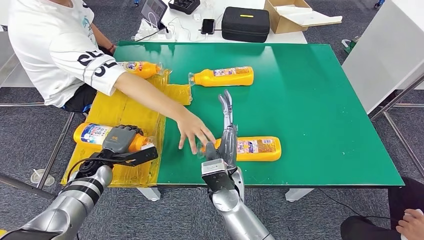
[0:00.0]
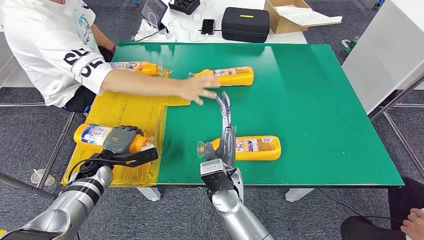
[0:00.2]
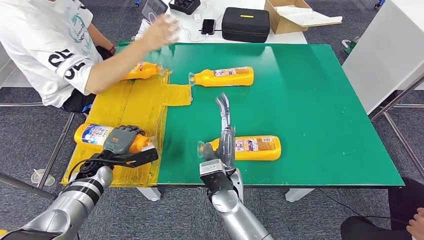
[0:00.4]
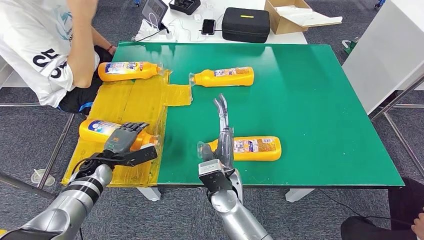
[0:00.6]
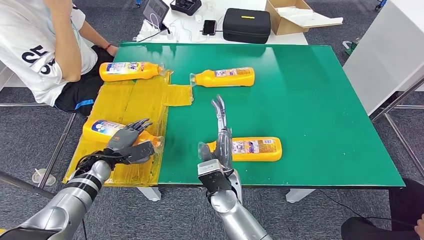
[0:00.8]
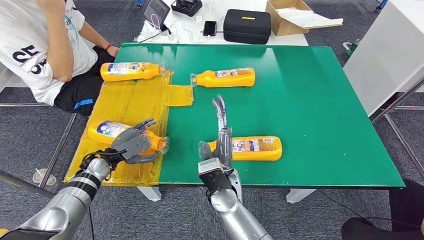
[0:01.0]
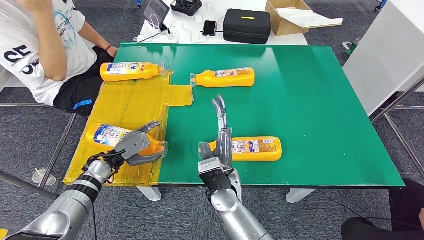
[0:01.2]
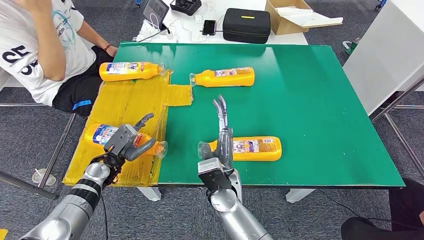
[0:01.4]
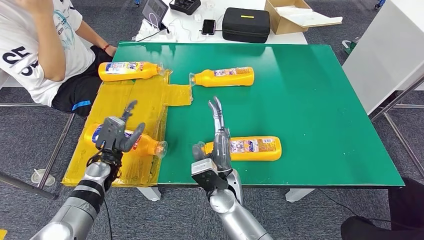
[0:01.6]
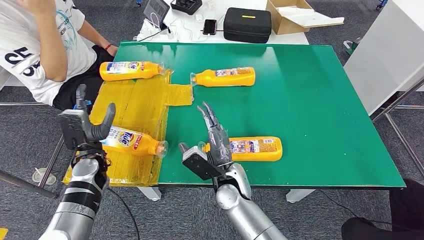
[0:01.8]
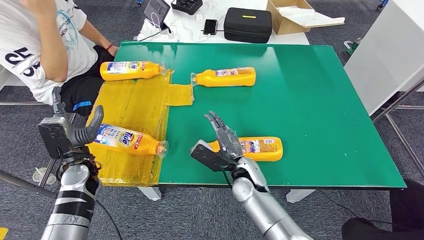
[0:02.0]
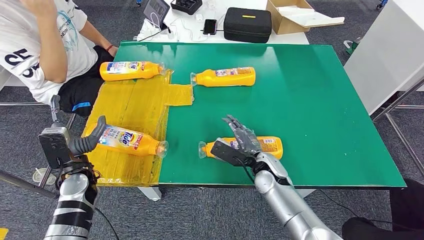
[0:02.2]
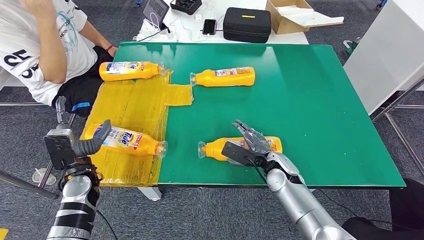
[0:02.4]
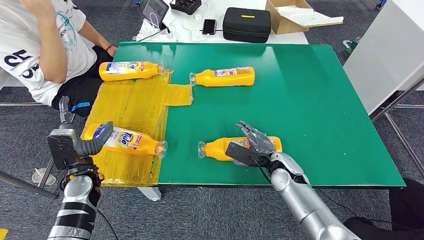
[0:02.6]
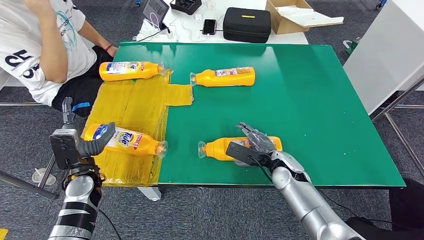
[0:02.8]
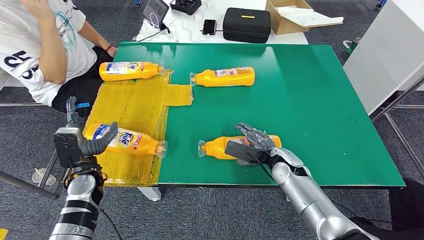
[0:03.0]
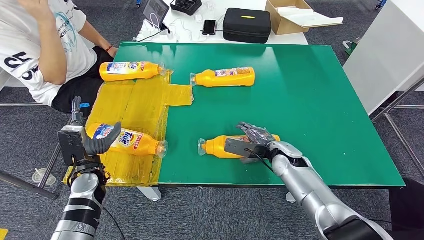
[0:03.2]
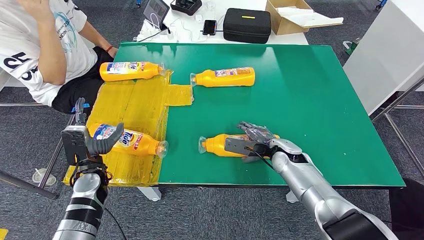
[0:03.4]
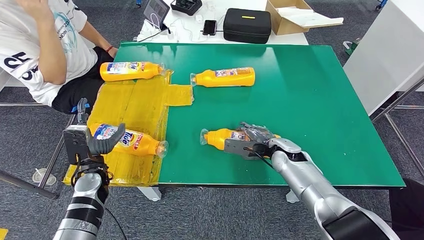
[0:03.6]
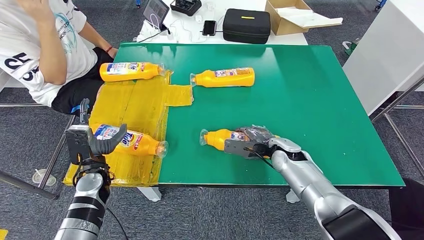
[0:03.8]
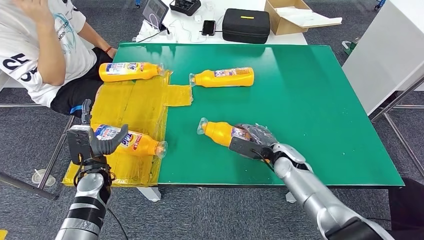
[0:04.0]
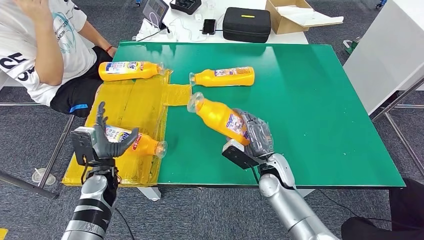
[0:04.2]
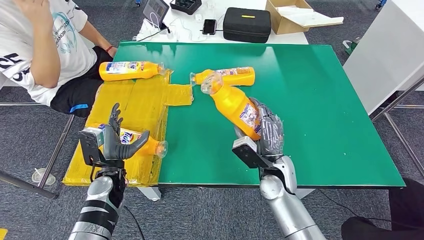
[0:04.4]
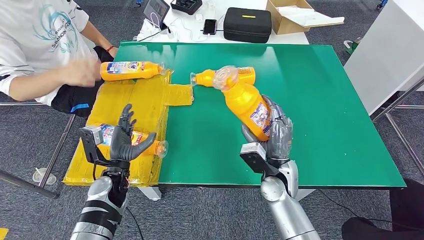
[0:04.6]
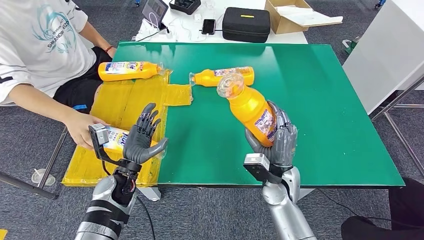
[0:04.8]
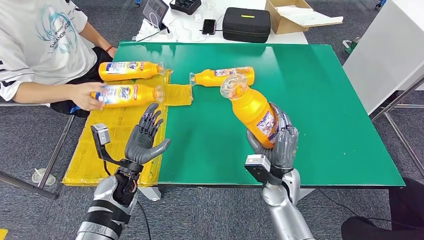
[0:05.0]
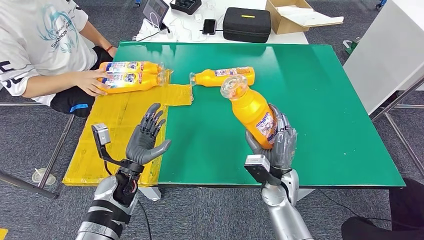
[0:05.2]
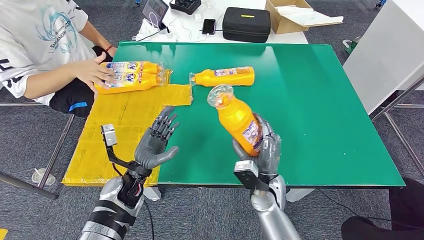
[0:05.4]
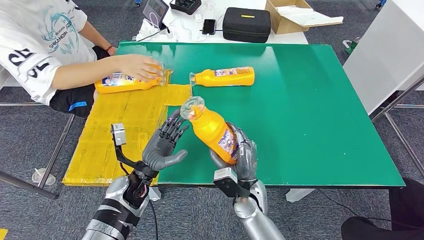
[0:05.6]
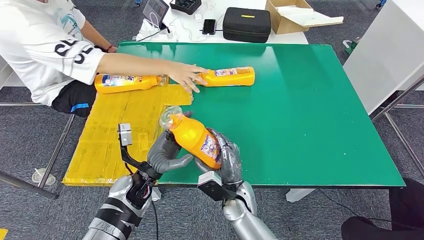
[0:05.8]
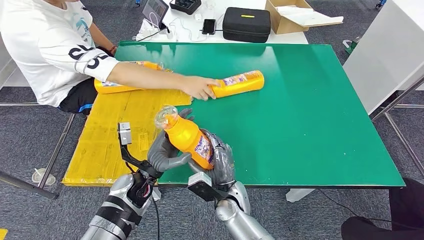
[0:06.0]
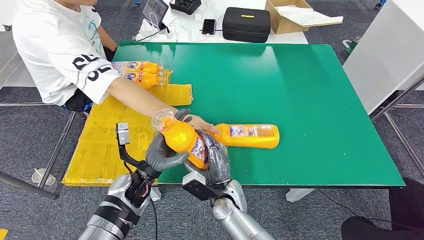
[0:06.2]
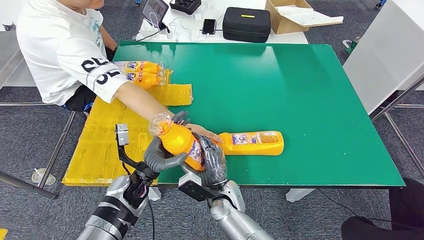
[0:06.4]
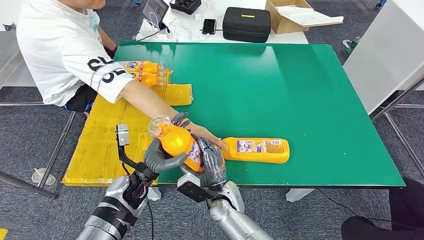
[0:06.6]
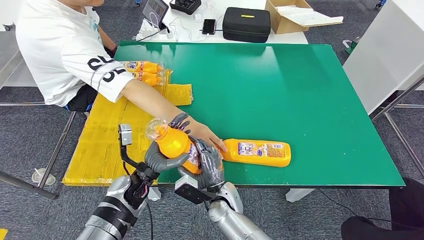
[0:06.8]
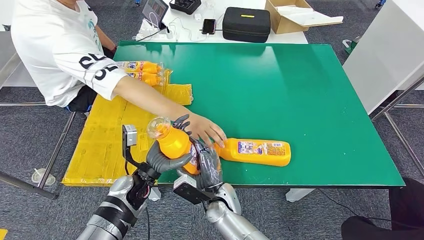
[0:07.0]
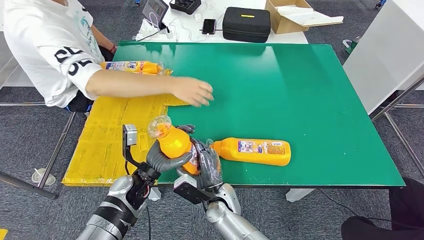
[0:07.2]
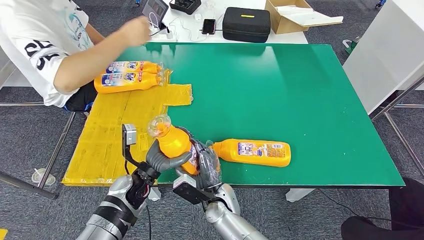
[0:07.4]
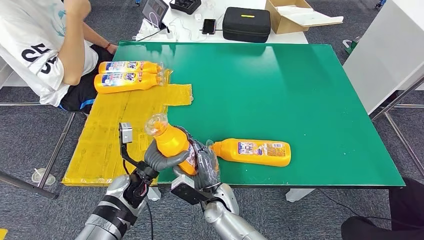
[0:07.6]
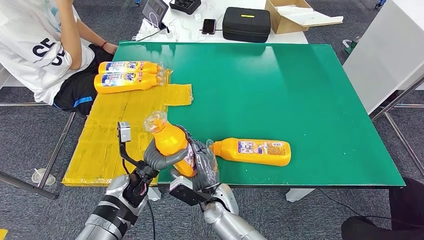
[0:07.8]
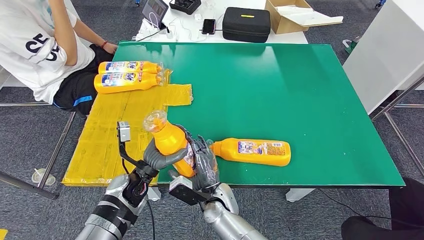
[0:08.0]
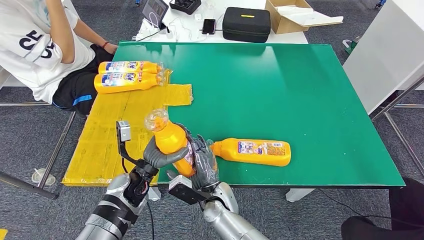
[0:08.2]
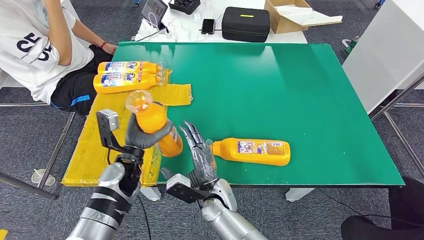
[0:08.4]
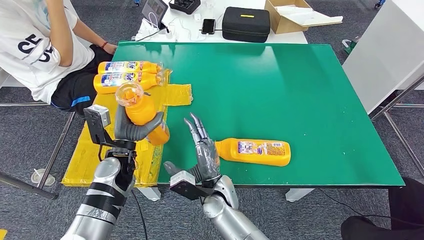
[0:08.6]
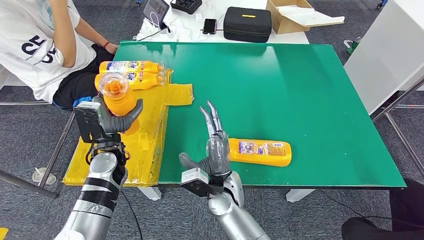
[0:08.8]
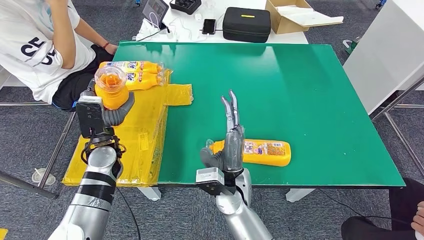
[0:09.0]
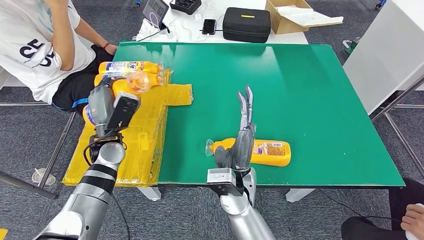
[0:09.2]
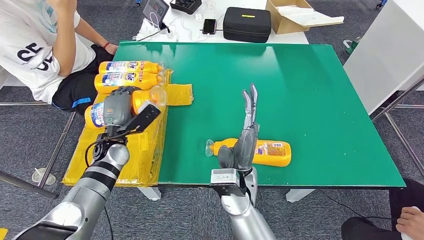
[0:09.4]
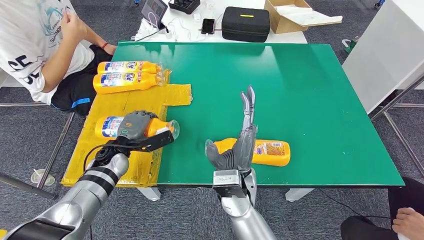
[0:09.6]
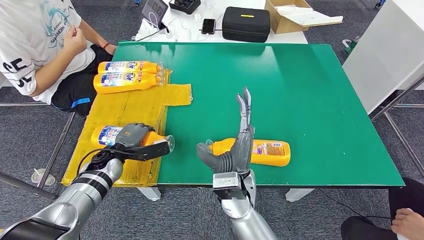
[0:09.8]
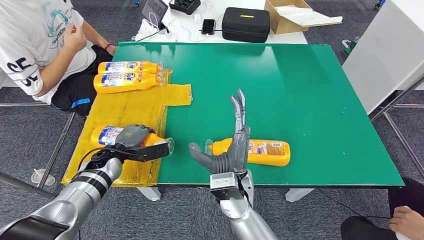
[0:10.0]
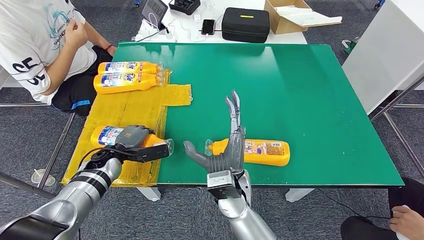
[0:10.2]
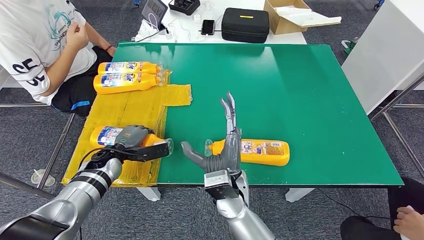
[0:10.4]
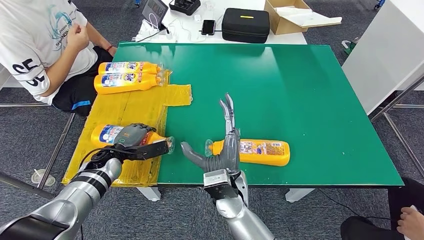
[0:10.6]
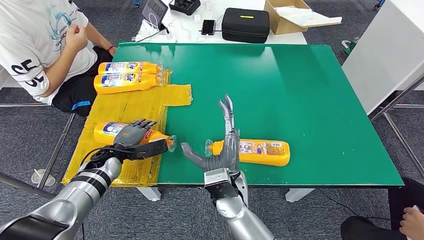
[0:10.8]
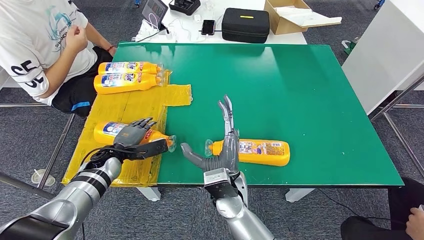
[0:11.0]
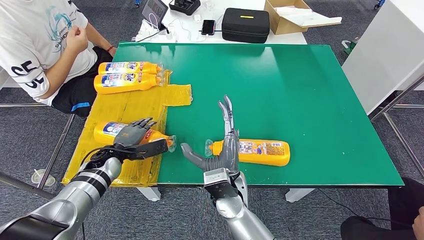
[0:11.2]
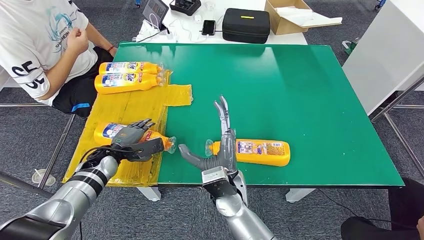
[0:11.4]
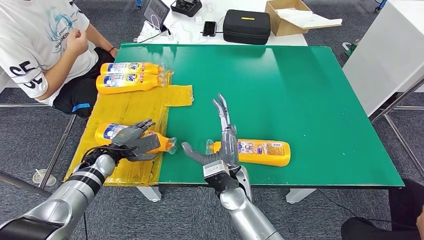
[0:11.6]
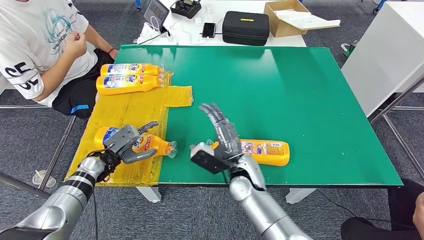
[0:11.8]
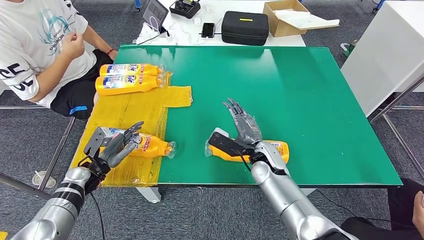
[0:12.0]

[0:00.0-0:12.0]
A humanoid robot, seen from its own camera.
Step, 0:03.6 to 0:06.0: Pick up the fast-moving consumer goods bottle from the table.
Step, 0:06.2 to 0:10.6: Flip the fast-moving consumer goods bottle to the front side.
0:01.6 to 0:03.0: The right hand travels to the right and forward by some 20 cm.
0:03.0 to 0:04.4: The right hand ends up approximately 5 cm from where it was. Meanwhile the left hand moves to the right, roughly 5 cm.
0:06.0 to 0:07.6: The hands stay close to where they were, moving slightly.

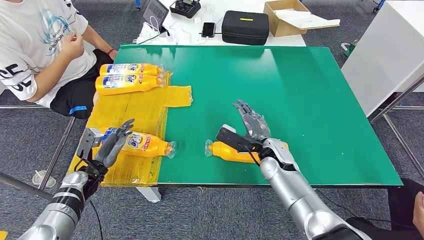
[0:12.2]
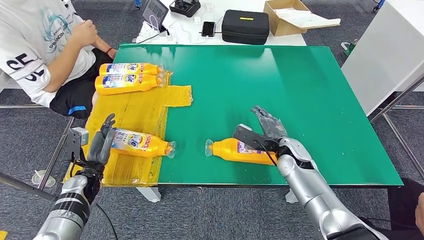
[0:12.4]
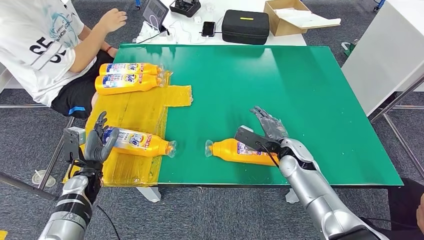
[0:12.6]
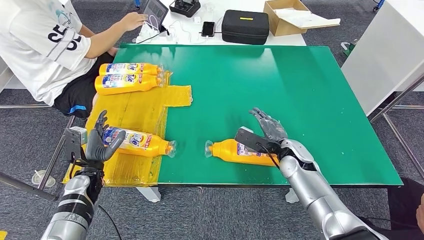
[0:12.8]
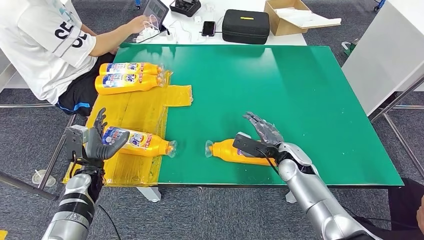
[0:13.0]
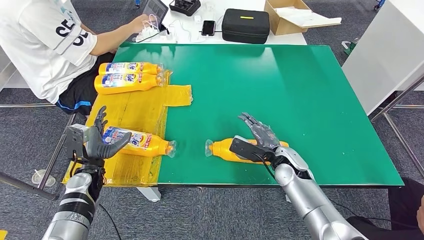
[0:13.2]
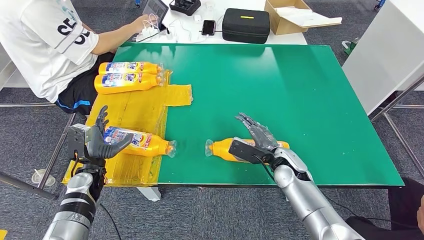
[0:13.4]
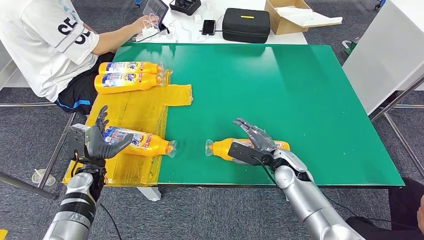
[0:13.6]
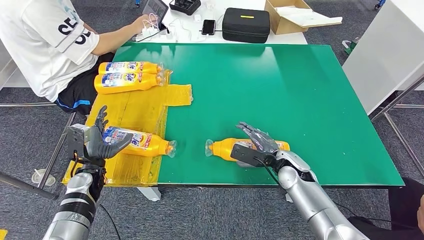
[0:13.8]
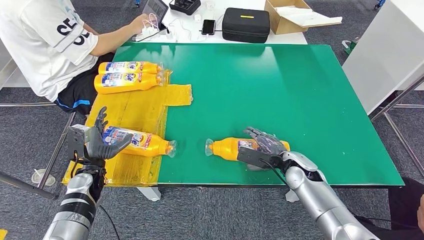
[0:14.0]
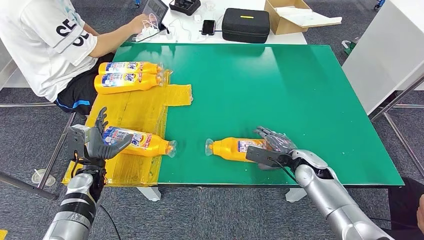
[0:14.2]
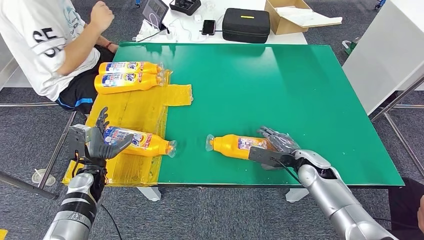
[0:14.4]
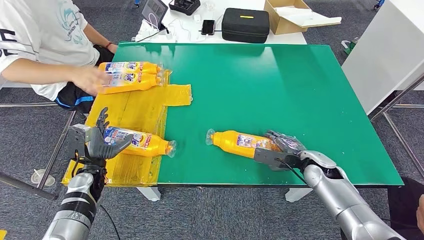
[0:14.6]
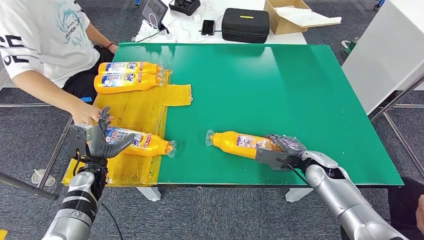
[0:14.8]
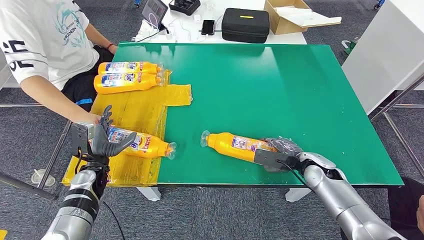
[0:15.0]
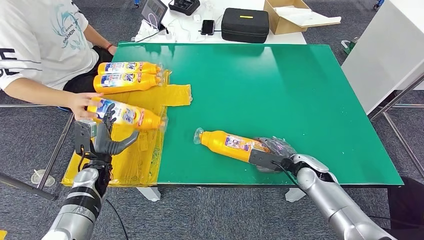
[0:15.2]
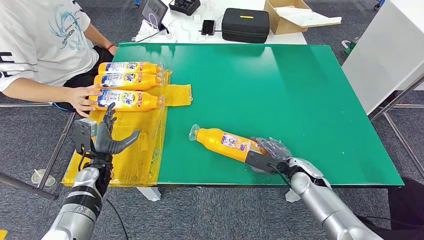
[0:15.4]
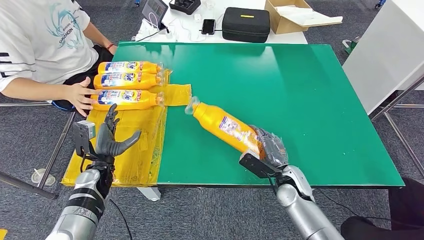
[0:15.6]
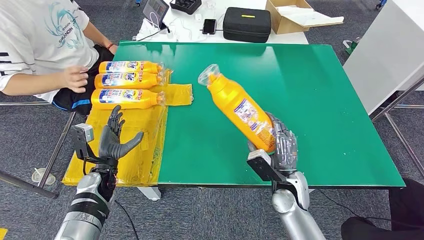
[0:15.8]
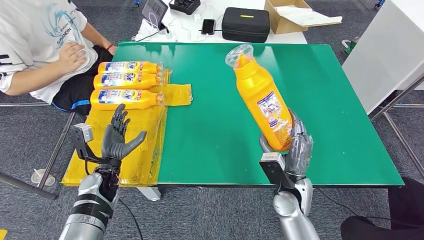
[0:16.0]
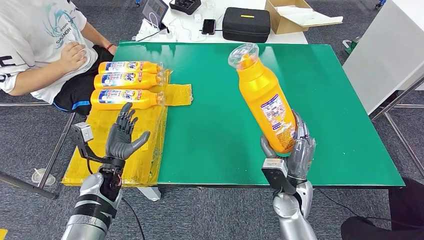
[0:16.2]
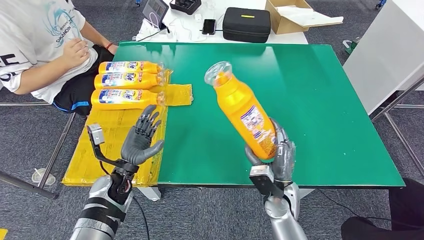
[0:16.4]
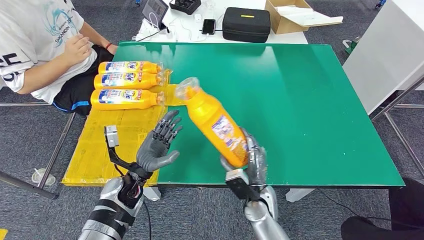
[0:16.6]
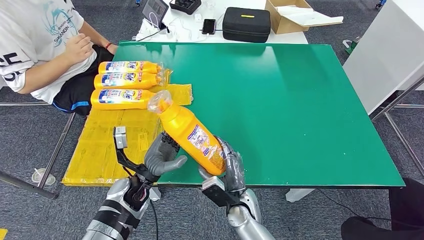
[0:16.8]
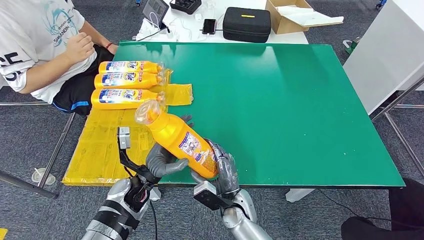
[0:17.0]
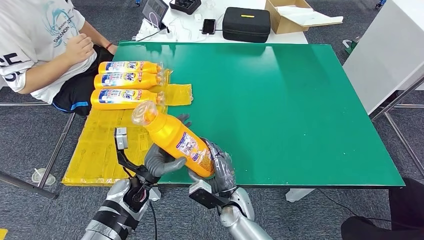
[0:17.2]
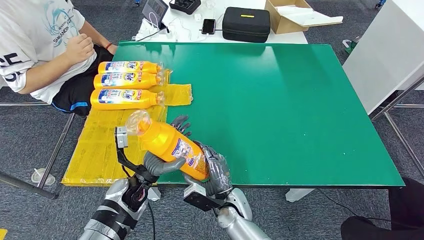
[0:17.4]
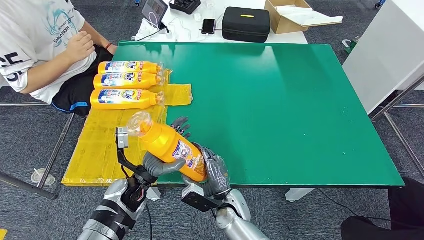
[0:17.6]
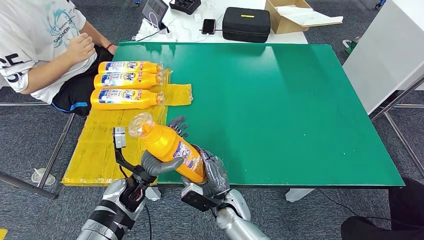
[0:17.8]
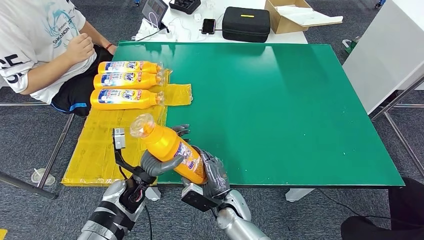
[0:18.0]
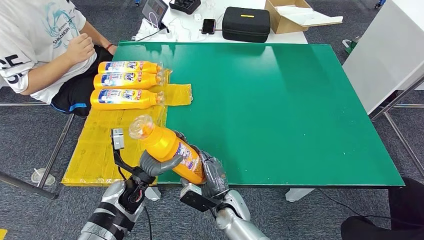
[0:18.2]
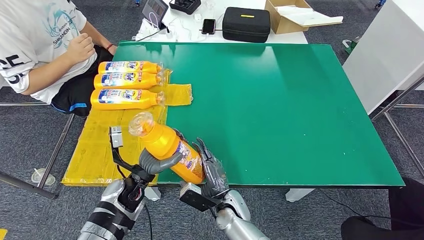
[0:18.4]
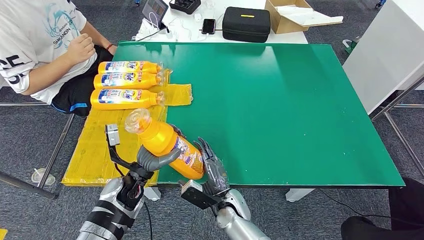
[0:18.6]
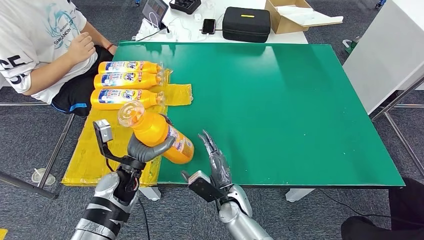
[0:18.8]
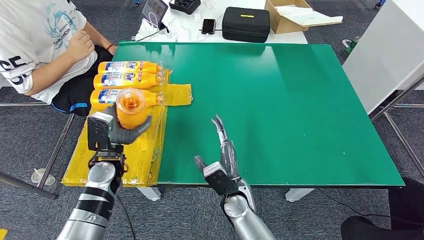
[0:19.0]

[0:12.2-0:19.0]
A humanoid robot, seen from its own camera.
Step, 0:13.6 to 0:16.4: Pick up the fast-moving consumer goods bottle from the table.
0:13.6 to 0:15.0: The right hand is displaced to the right by roughly 10 cm.
0:17.6 to 0:19.0: The right hand heads upward, covering roughly 5 cm. Meanwhile the left hand heads to the left, covering approximately 5 cm.
